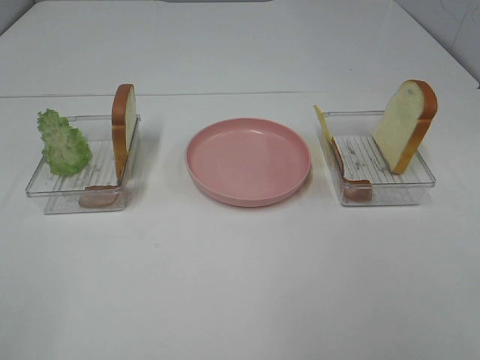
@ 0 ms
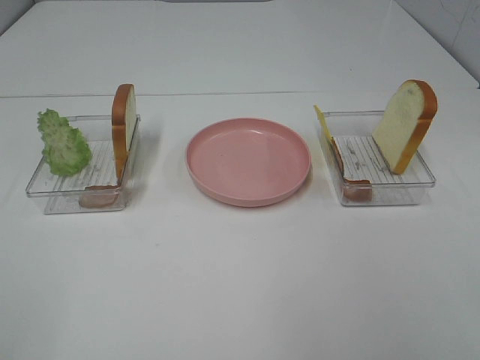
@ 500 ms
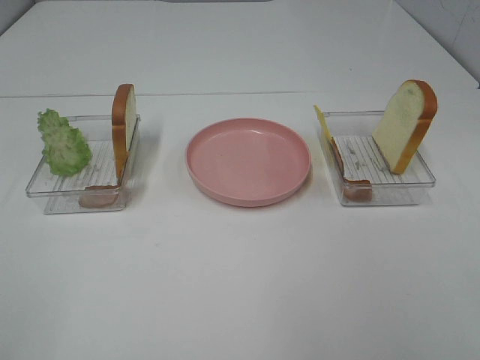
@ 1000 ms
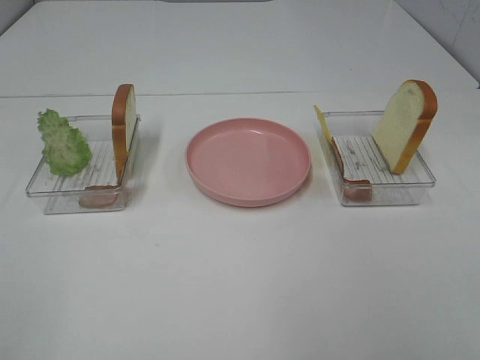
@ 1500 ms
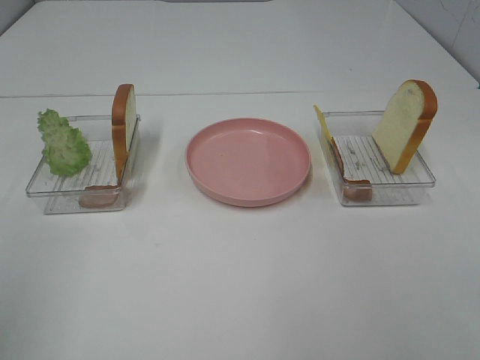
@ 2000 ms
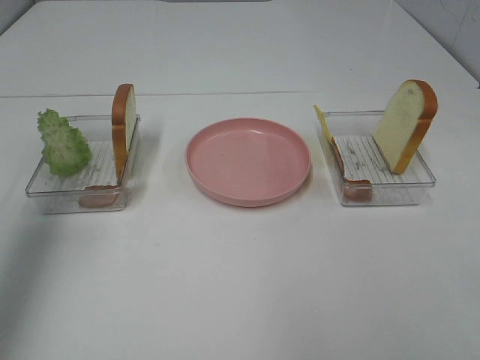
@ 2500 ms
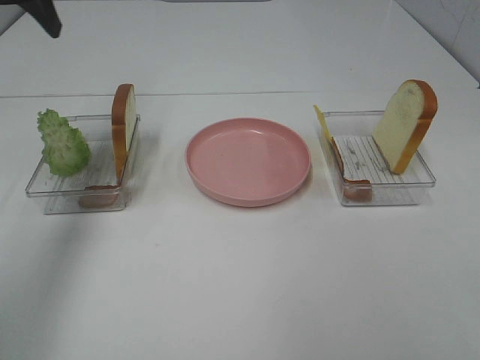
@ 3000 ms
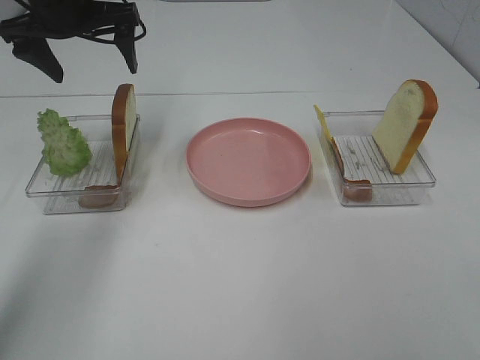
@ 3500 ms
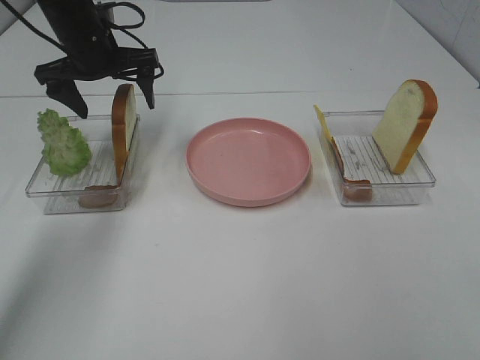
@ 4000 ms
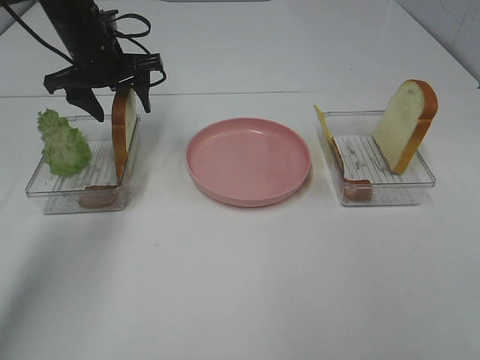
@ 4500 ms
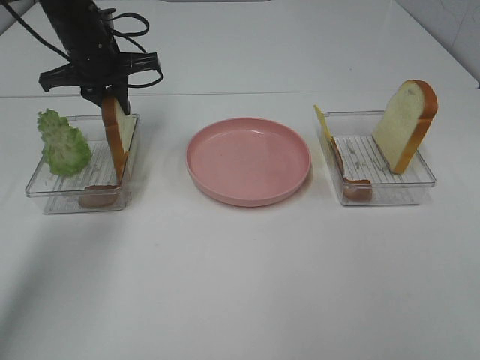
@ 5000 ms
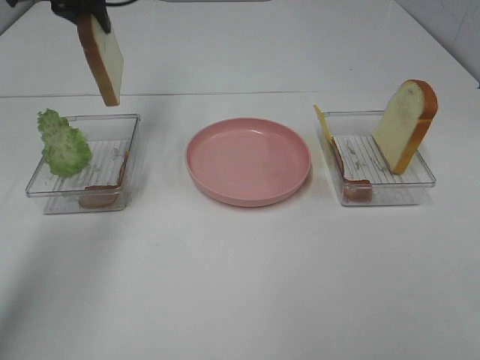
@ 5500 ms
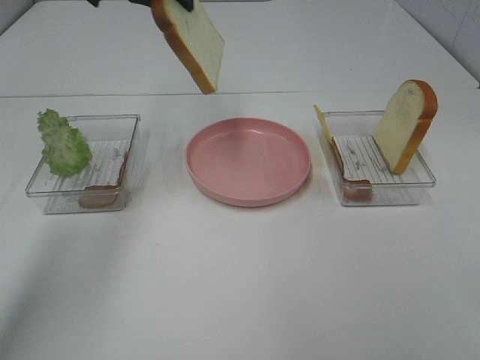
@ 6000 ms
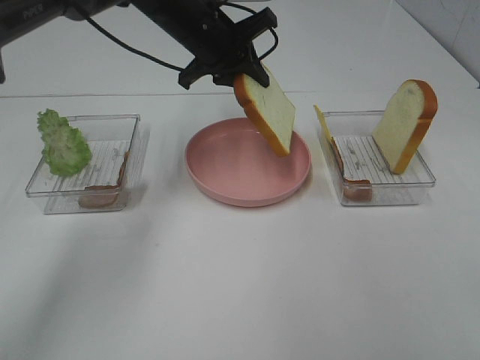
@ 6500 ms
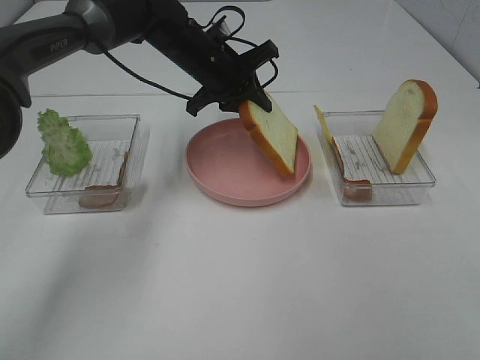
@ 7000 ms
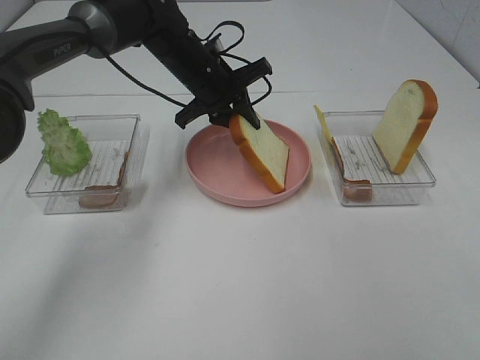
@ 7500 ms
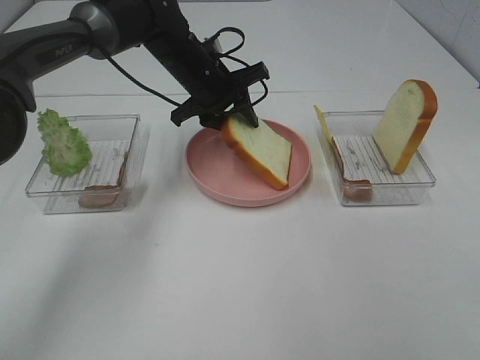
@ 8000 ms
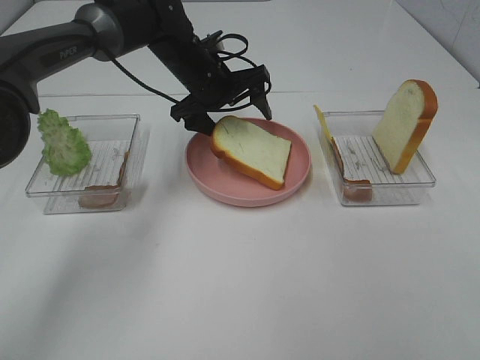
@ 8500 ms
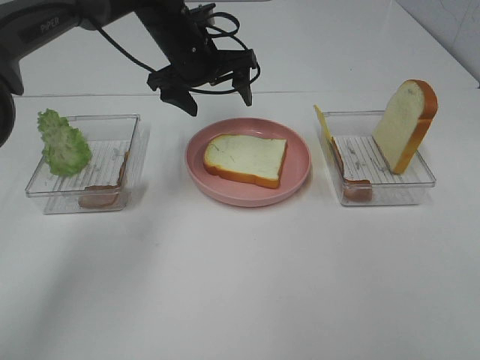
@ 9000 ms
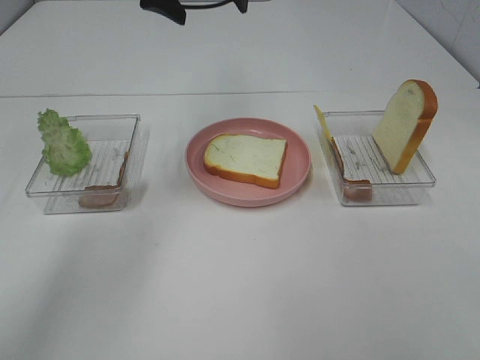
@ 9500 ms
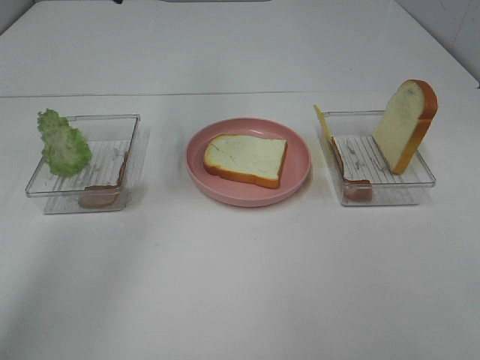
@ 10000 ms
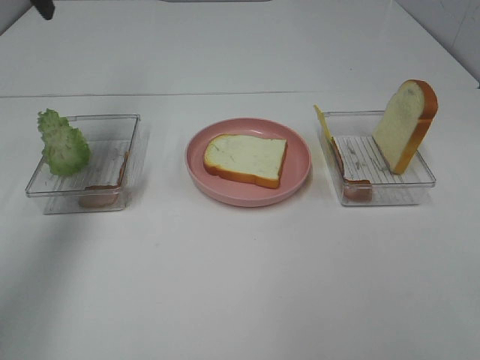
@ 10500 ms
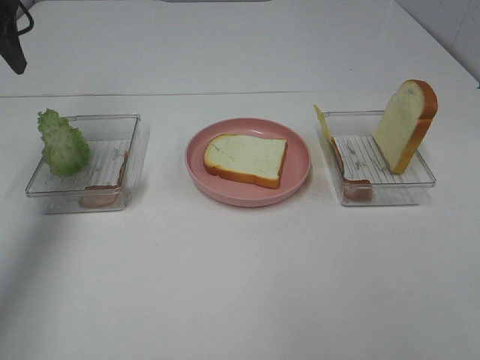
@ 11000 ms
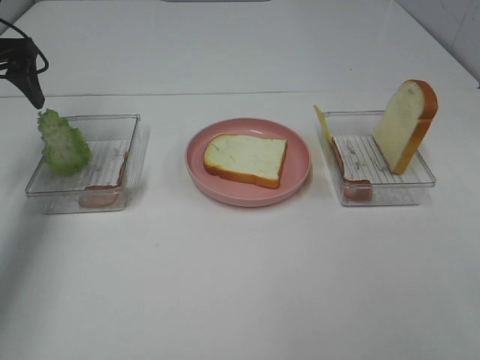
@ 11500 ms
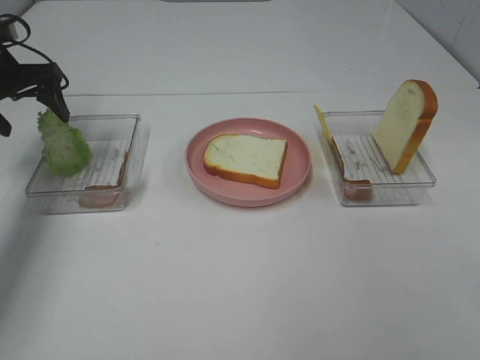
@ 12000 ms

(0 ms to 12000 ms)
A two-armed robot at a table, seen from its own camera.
Task of the whole recording: Make sandwiches.
Step, 0 ms - 5000 ms: Left hand:grab the bread slice.
Step, 5500 ms - 8500 ms: Left hand:place the bread slice on the plate.
2000 ms - 4000 ms: The left gripper moves forward, about 40 cm.
4000 ms - 6000 ms: The left gripper heads upward and to the right, covering about 15 cm, and closes up.
6000 ms - 8000 ms: The left gripper shifts roughly 20 cm downward and to the right.
8000 ms - 10000 ms: The left gripper moves upward and to the left, some 20 cm, and opens up.
10000 ms - 12000 ms: The left gripper travels to the left and downward by approximately 25 cm.

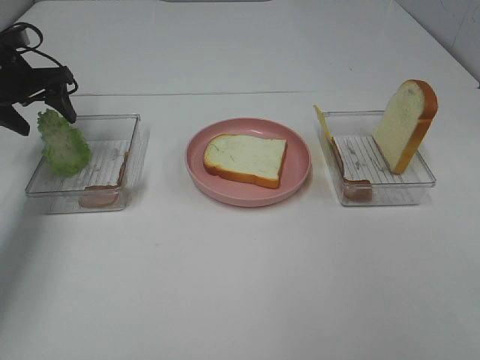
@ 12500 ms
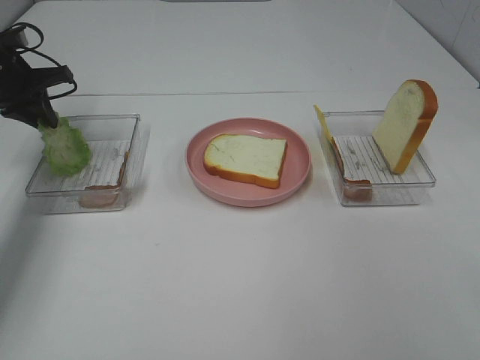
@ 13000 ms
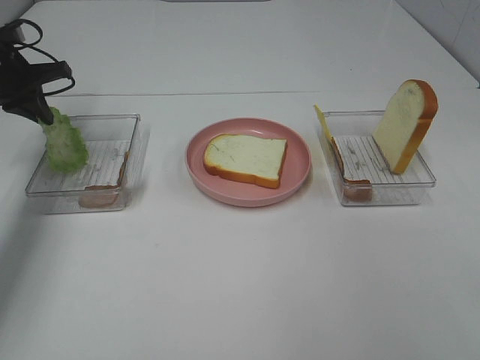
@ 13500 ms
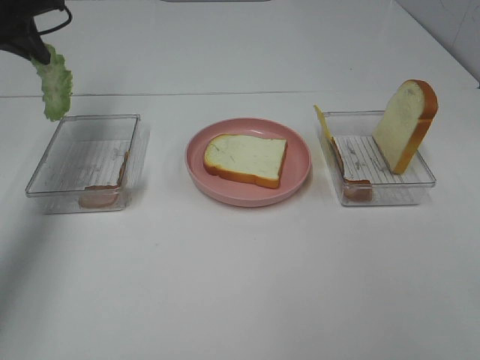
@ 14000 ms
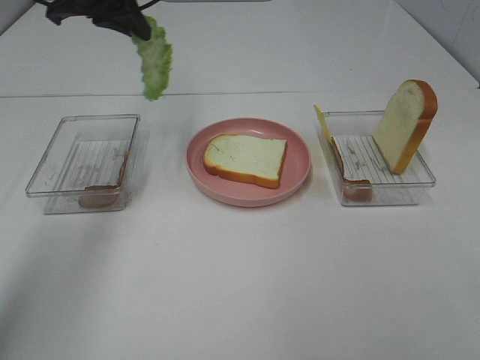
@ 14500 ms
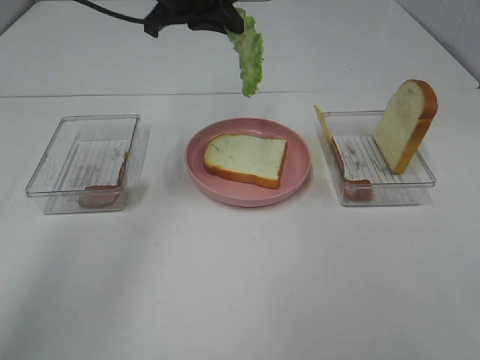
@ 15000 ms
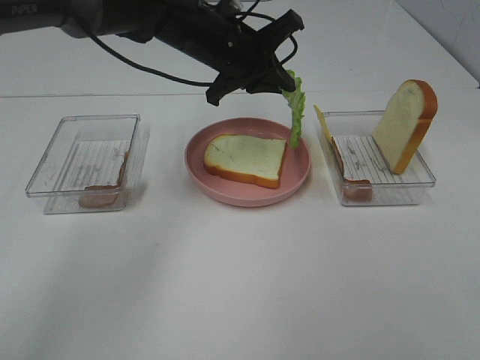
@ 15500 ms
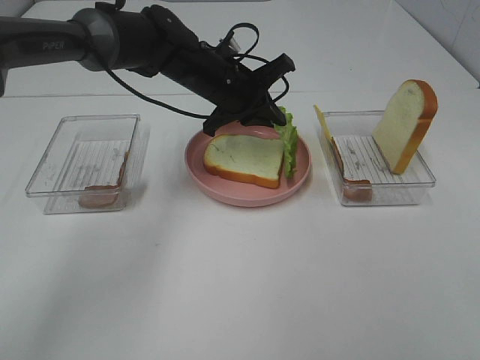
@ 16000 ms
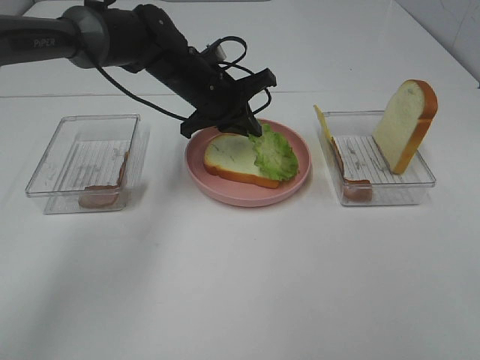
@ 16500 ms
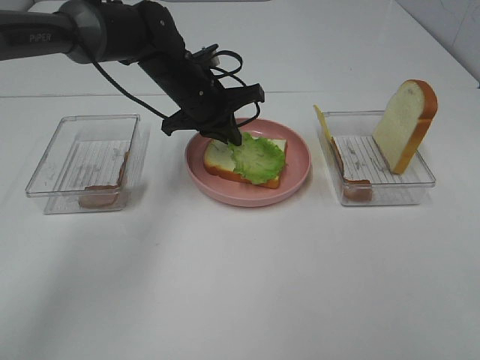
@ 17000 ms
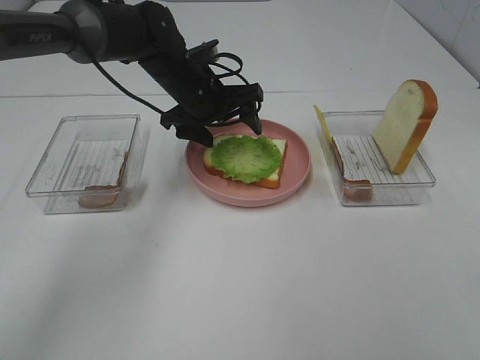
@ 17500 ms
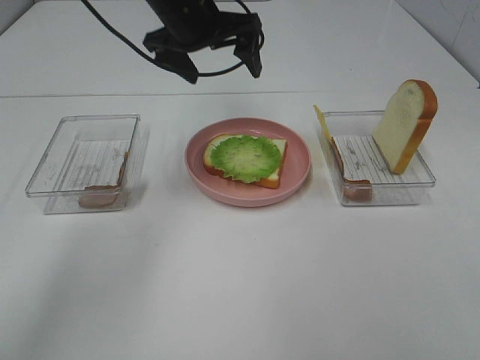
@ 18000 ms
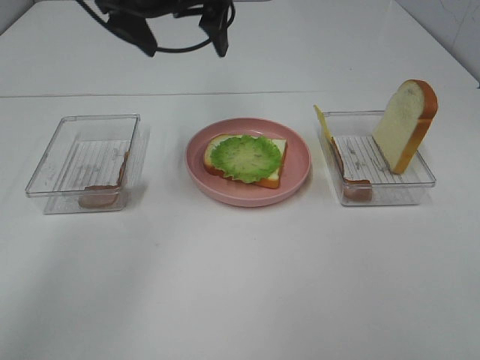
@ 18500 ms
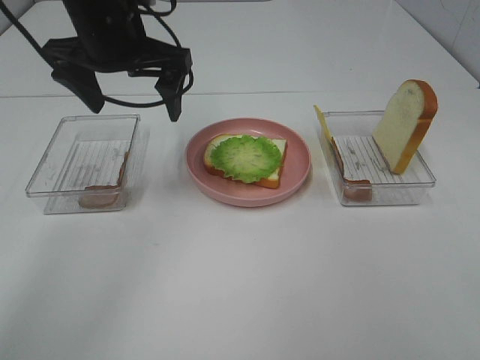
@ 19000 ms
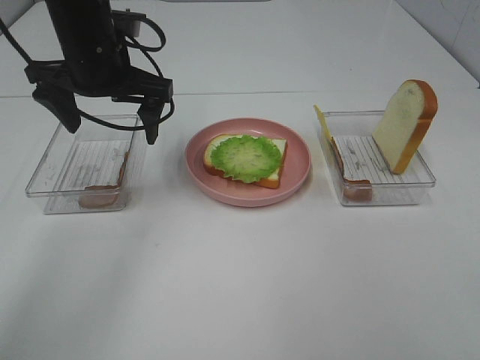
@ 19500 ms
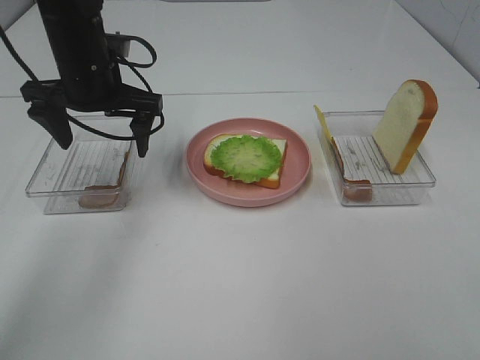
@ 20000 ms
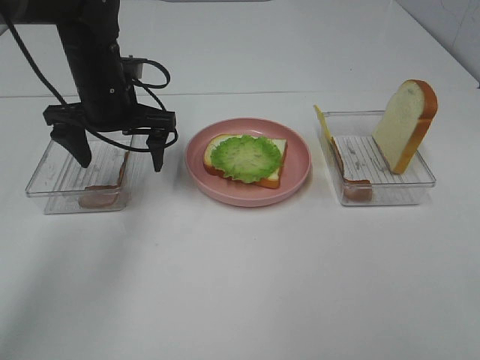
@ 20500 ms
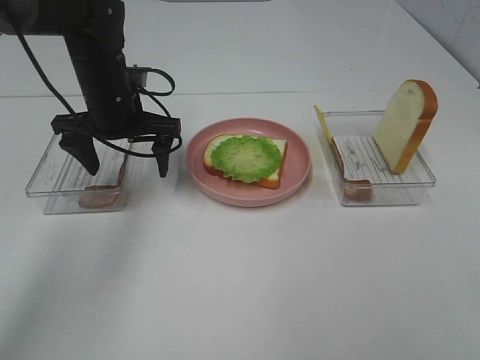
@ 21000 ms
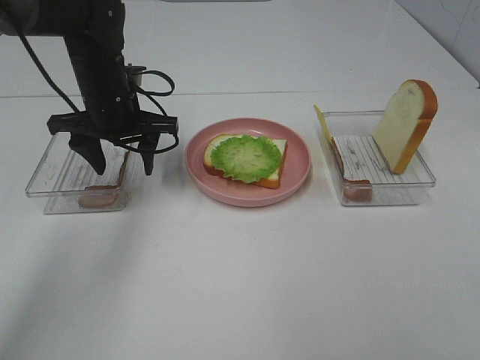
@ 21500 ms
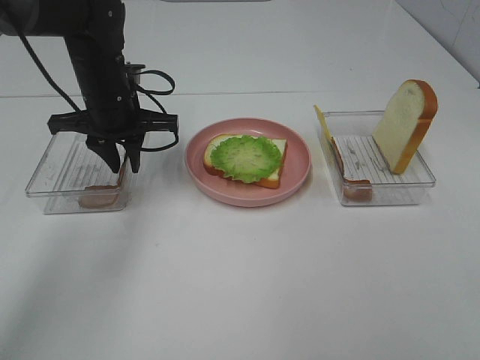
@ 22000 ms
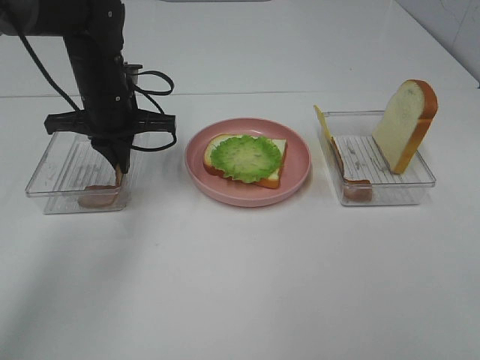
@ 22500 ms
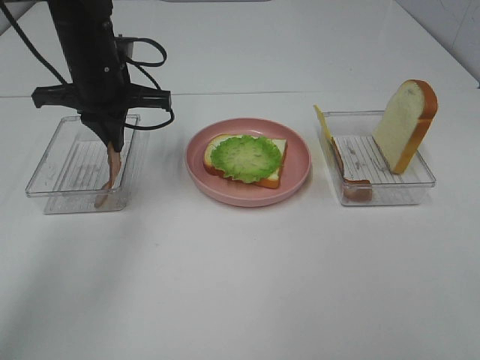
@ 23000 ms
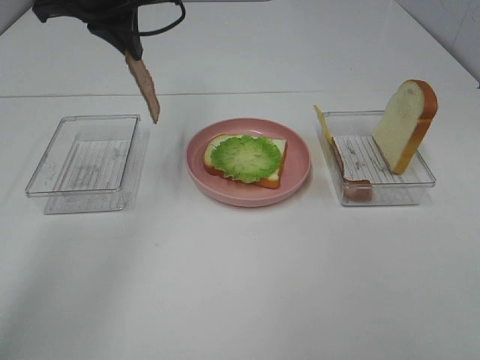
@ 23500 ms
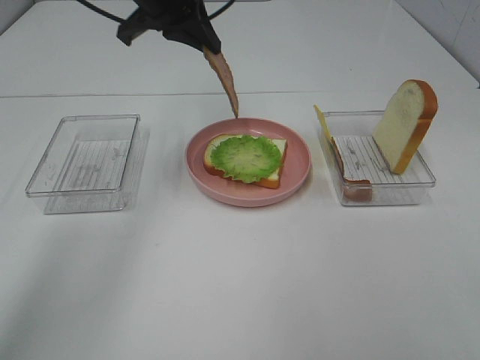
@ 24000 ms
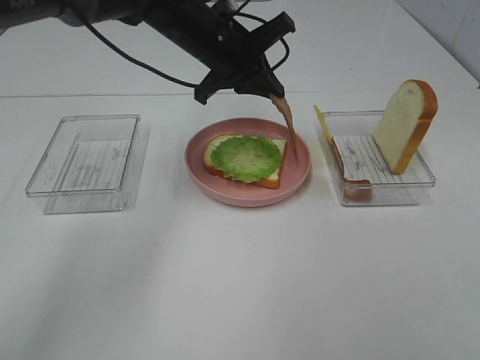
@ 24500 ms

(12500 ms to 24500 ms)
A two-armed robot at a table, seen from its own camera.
Task of the whole recording: Make sandwiches.
Step, 14000 ms - 17500 ms: Left hand:place the lettuce slice on the bread slice.
Step, 18000 ms - 22500 ms: Left hand:grab the bacon.
12500 ms - 14500 ms: The left gripper shifts some 20 cm to the right and upward, and closes.
14500 ms - 16500 ms: The left gripper shifts approximately 20 cm downward and to the right.
16500 ms - 18500 ms: The left gripper is displaced upward by approximately 15 cm, and opens its fingers.
18500 ms - 20500 ms: The left gripper is displaced downward and to the left by approximately 15 cm.
20500 ms - 22500 ms: The left gripper closes its fingers.
22500 ms - 24500 ms: The left gripper goes about 10 cm to the right, and travels upward and back again, roughly 15 cm each way.

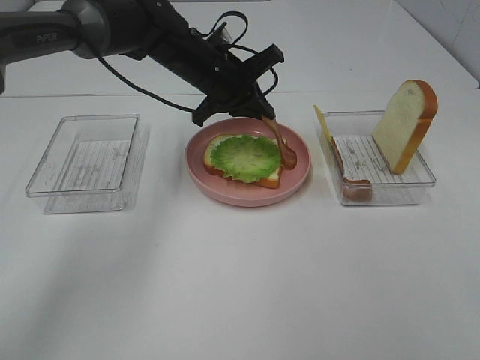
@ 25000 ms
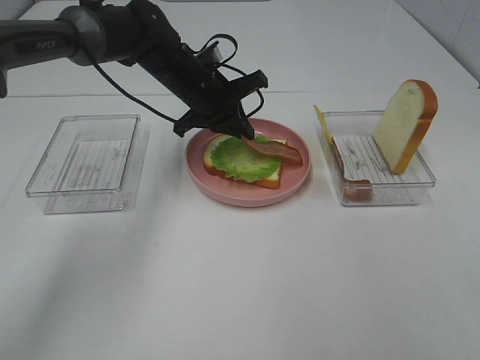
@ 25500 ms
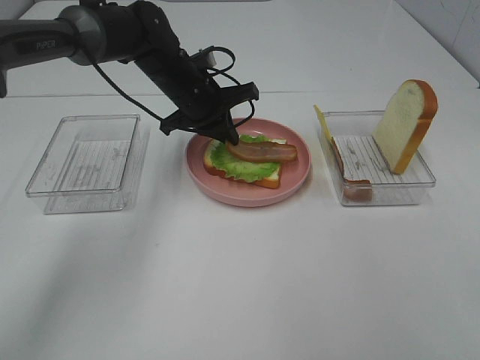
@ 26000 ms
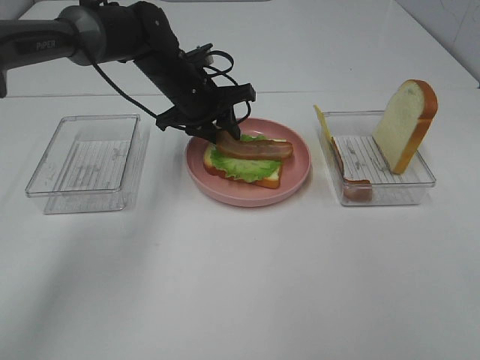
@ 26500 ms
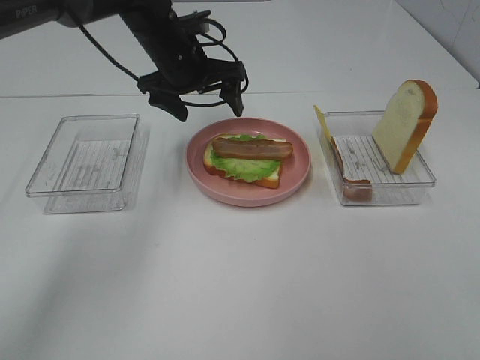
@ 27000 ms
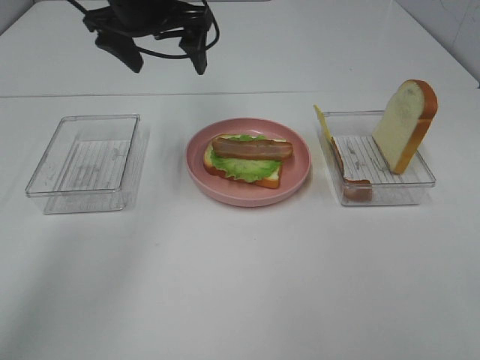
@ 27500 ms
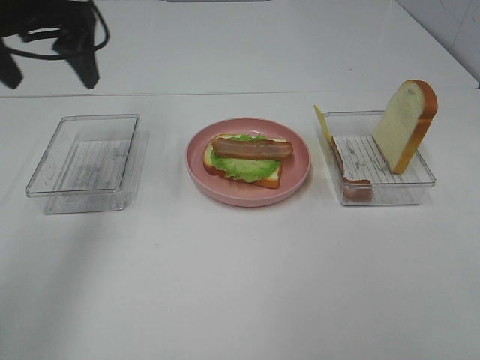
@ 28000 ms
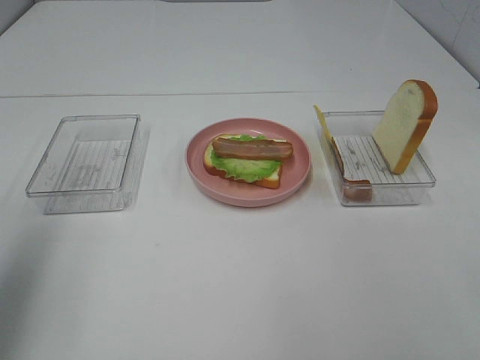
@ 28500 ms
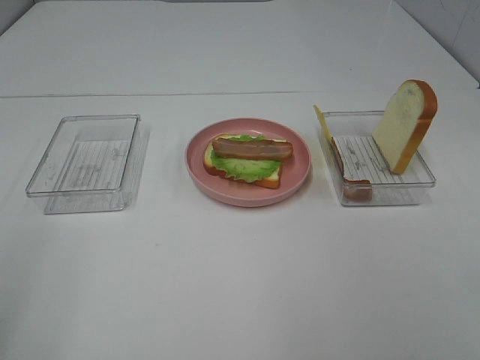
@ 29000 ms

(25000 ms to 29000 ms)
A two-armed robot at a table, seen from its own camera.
Task of the whole recording: Make sandwiches.
25000 ms - 27000 ms: The left gripper shifts by approximately 5 cm, and opens up.
27000 ms - 29000 ms: The left gripper is displaced backward and to the left by about 50 cm.
